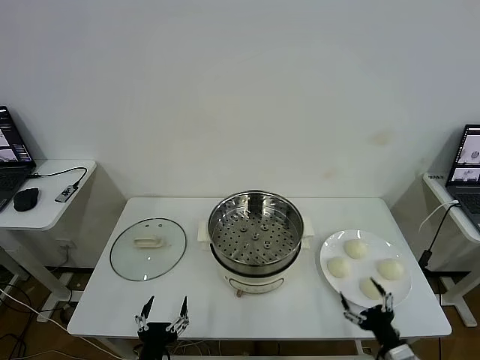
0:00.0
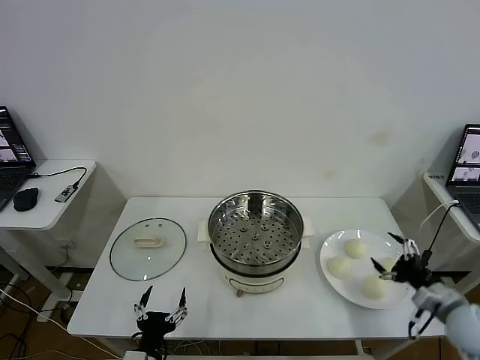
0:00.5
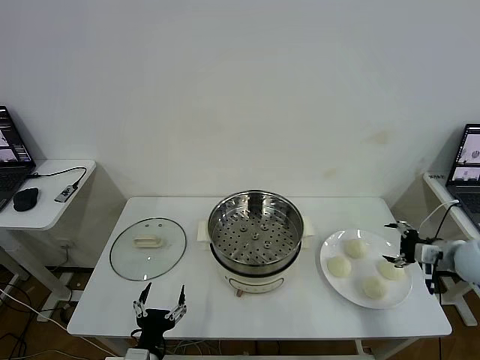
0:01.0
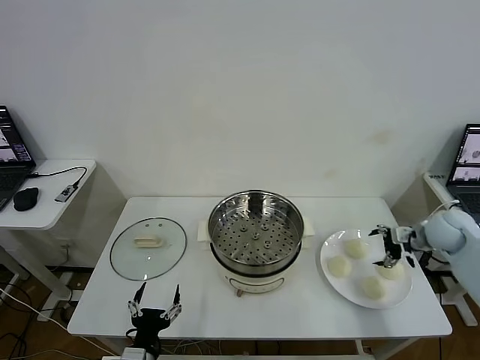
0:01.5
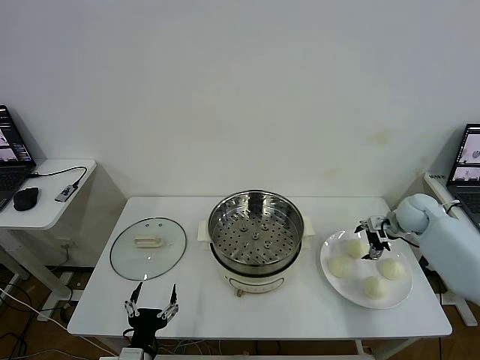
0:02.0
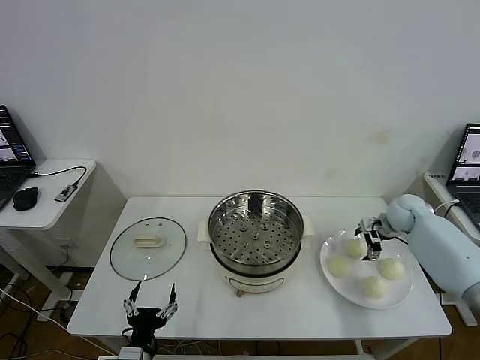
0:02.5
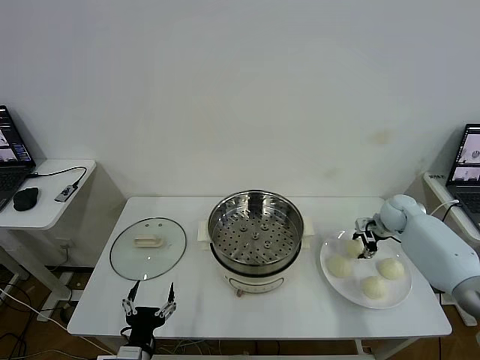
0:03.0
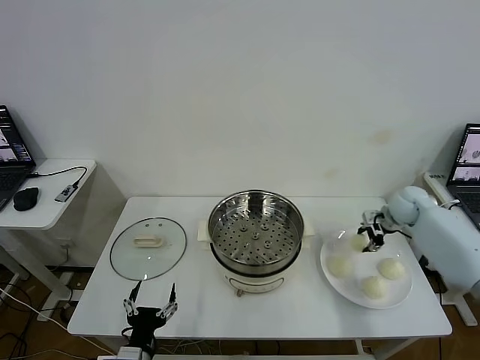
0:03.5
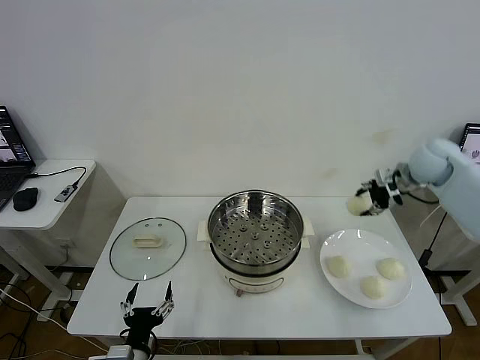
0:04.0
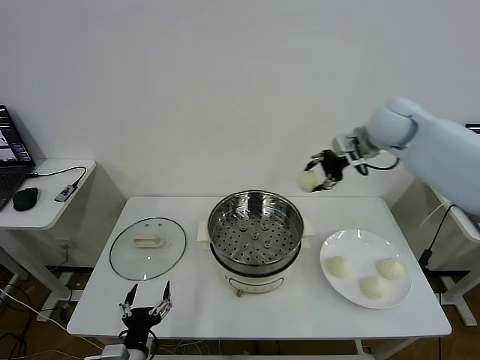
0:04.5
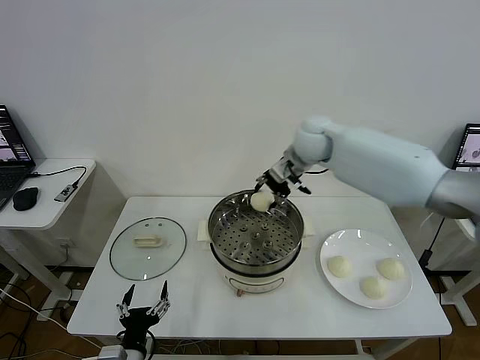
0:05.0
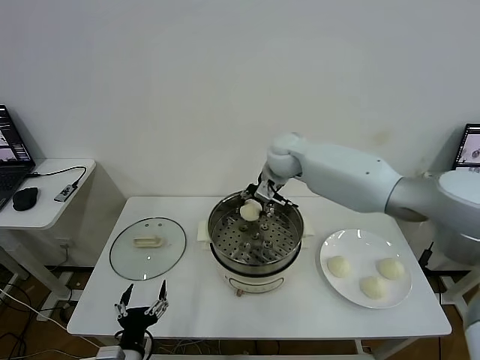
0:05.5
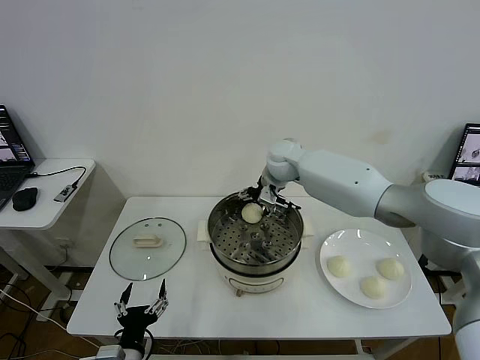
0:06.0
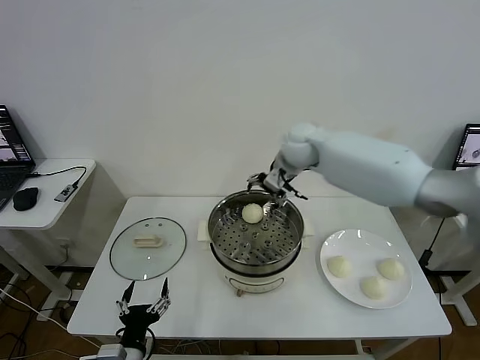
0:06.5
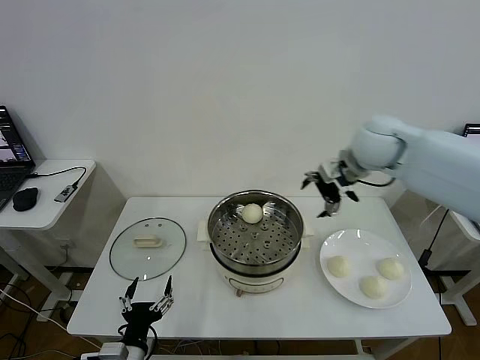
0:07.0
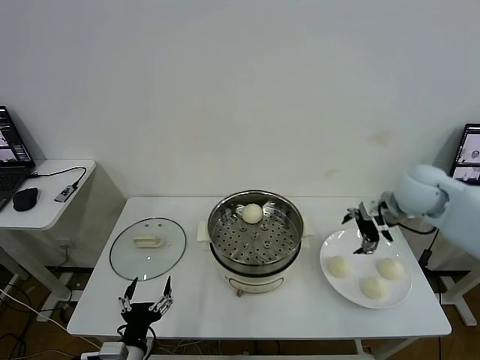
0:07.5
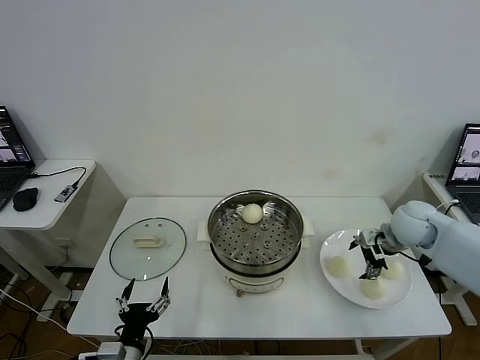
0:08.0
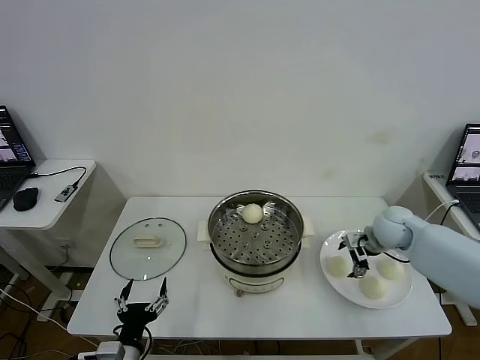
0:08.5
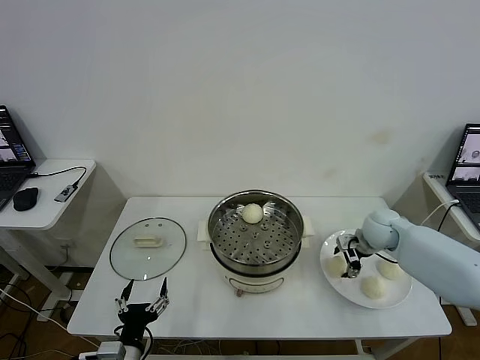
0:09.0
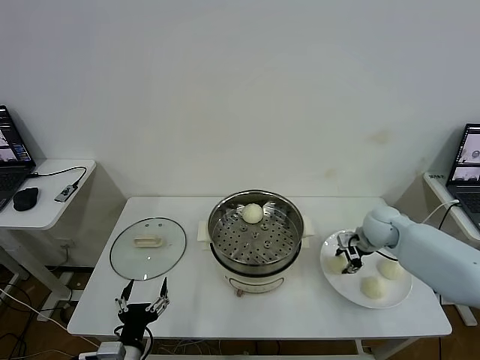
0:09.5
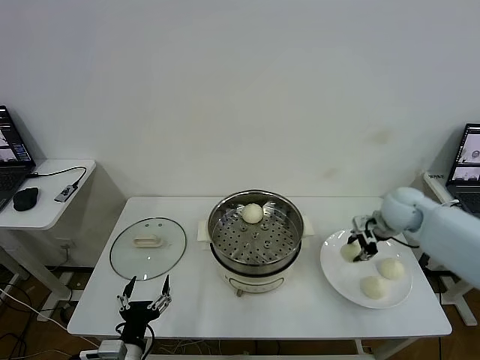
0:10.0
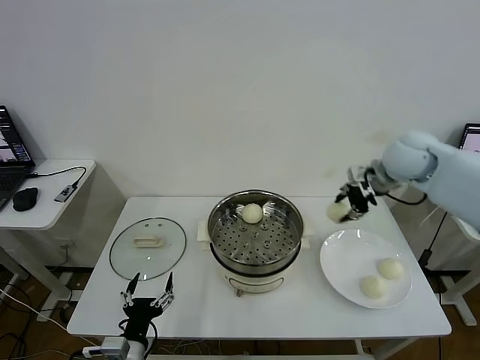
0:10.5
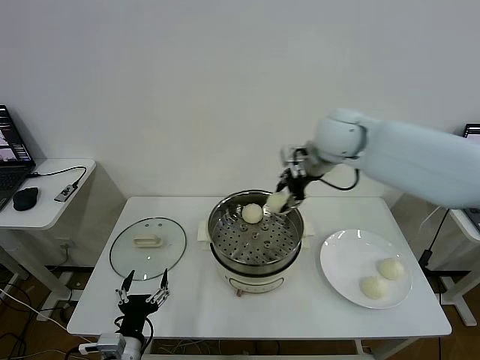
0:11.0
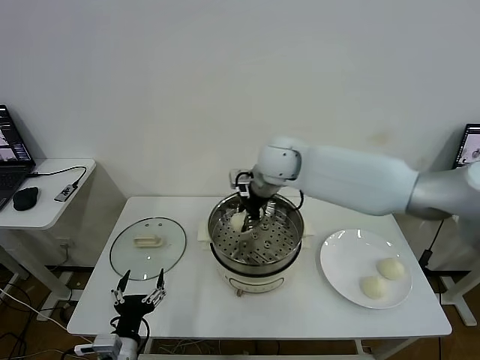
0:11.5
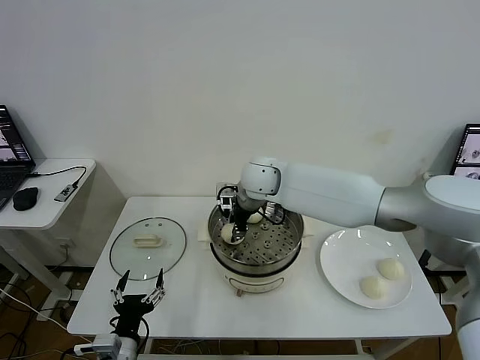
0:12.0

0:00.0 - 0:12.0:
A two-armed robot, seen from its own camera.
Task of the whole recording: take steamed baozi put them in steamer then cover it.
Step, 0:00.0 - 0:03.0: Grasp the baozi in the plate with right gripper.
Step, 0:03.5 - 0:06.0: Place the baozi on the steamer with right gripper.
Step, 0:06.5 - 0:09.0: Grasp the baozi in the plate with right gripper.
0:02.0 - 0:04.0: The right gripper is displaced upward by approximately 15 cm, and closes its fingers.
0:04.0 - 0:06.0: The right gripper goes some 30 cm to the left, and opens its fingers.
0:06.0 - 0:08.0: The right gripper goes approximately 30 cm to the right and backward.
0:08.0 - 0:10.0: The right gripper travels downward and back again, approximately 5 cm each way, and closes up.
0:10.0 - 0:12.0: The right gripper goes roughly 35 cm to the left.

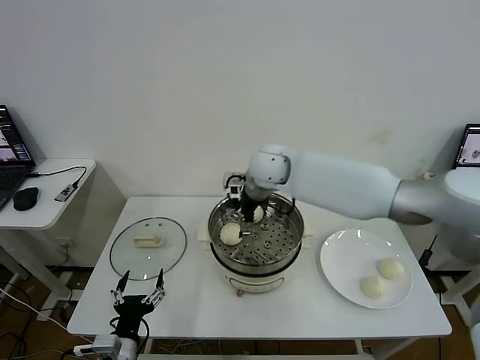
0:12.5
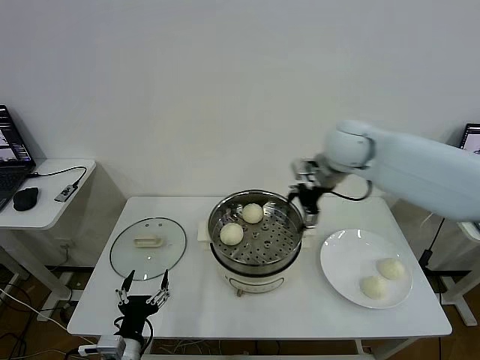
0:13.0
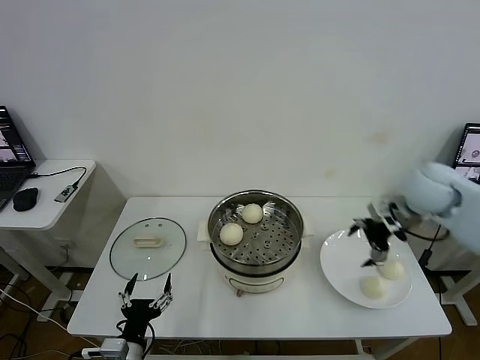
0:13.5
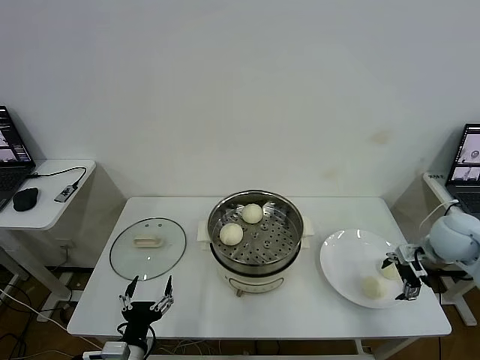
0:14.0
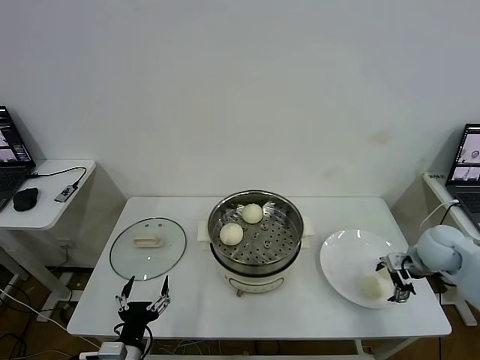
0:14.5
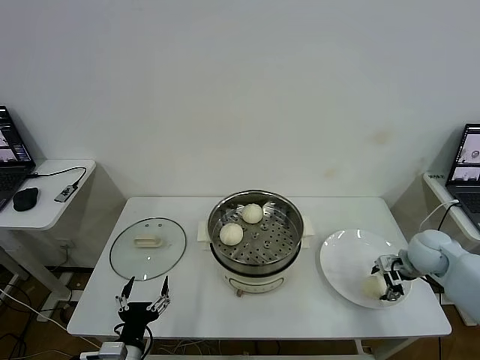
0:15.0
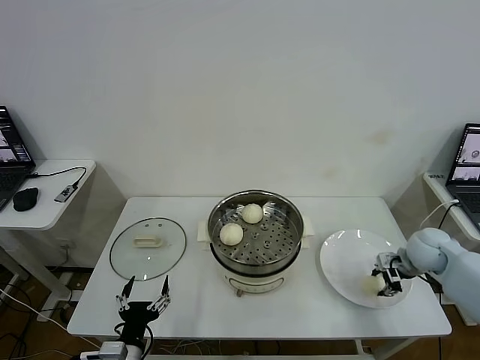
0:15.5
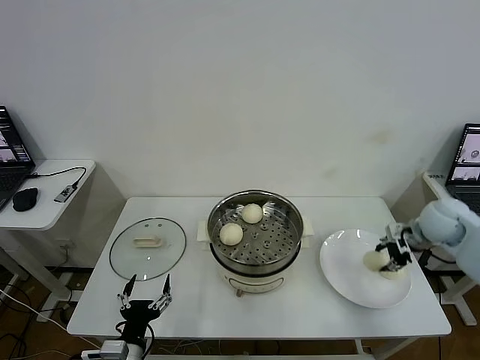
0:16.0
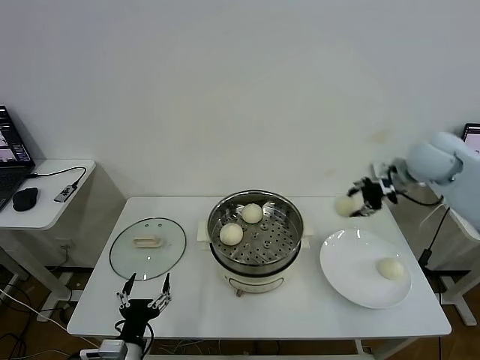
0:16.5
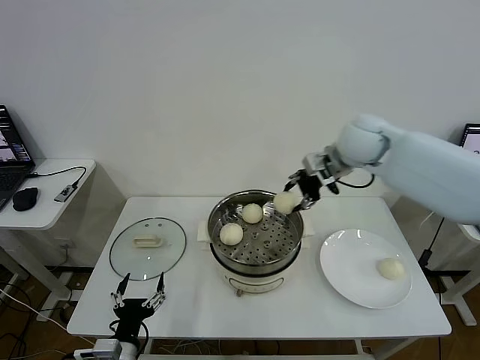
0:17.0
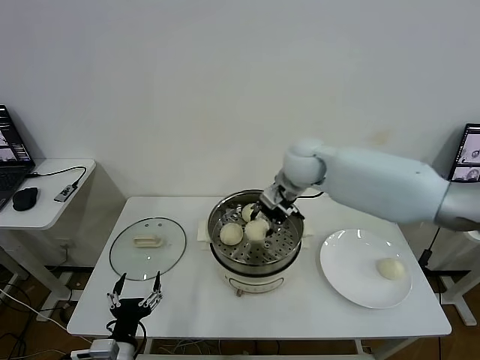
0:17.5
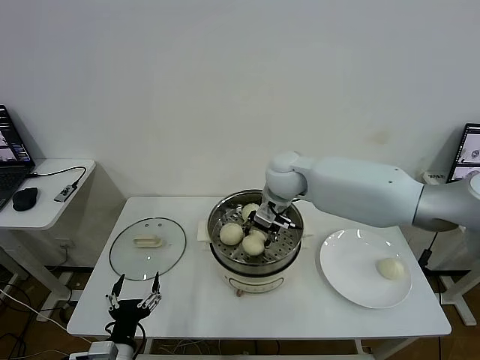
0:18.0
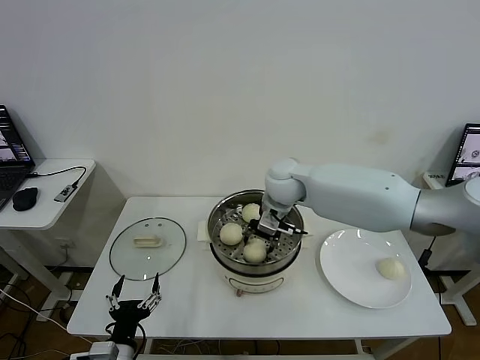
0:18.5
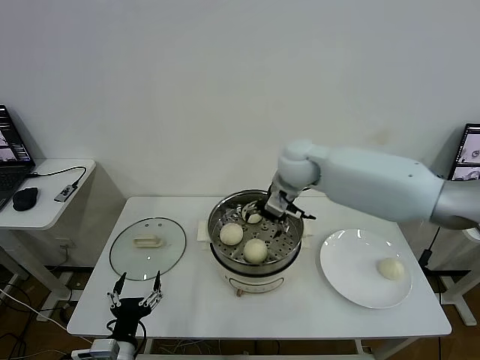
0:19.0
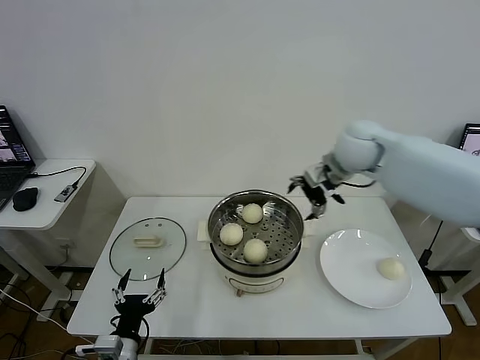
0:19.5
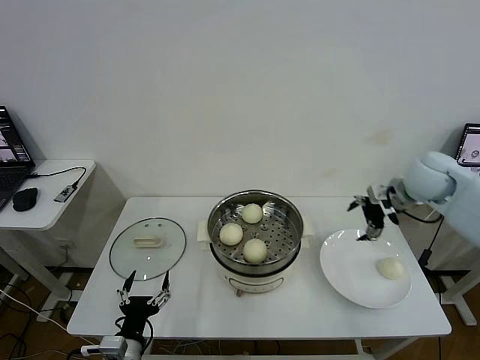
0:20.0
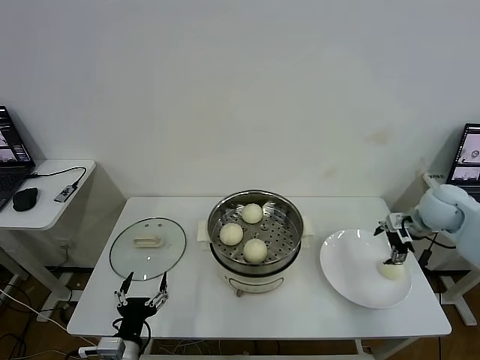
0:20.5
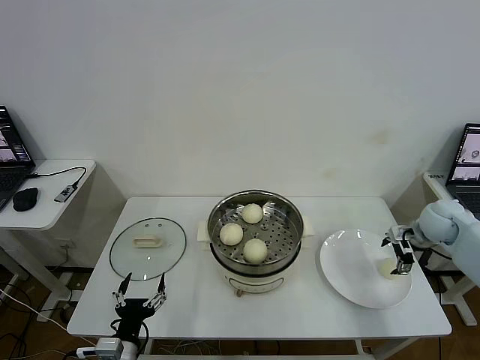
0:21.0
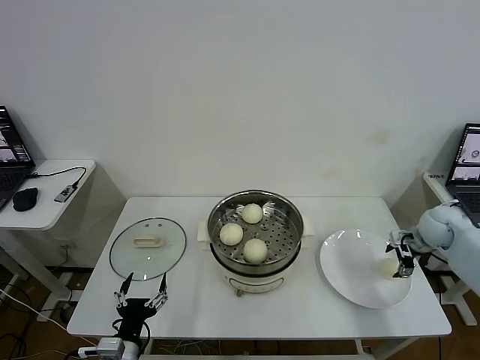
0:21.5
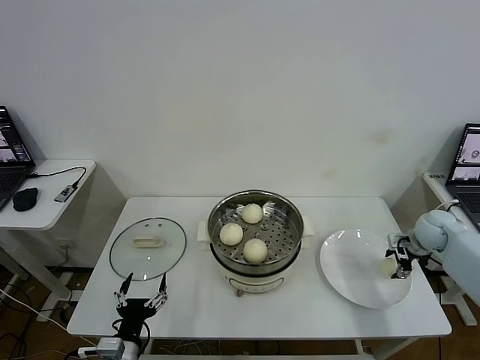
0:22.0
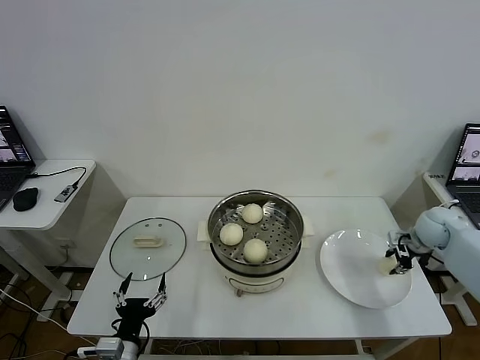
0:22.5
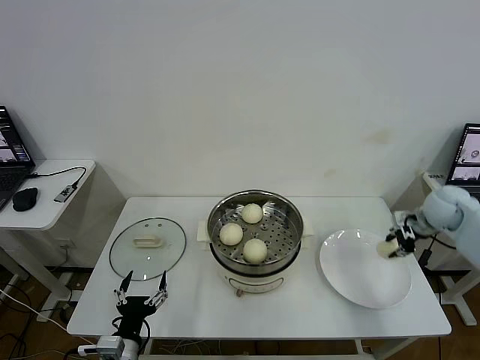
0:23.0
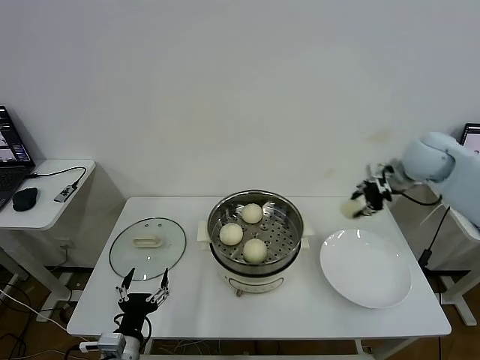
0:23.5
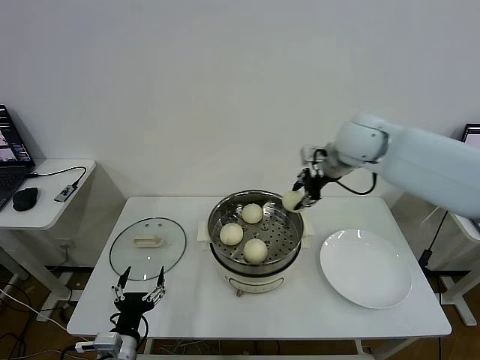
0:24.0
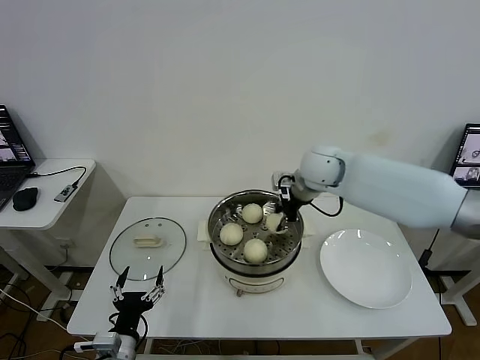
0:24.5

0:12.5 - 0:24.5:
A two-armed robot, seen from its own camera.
Task of the whole recording: take steamed baozi put them in steamer then cover it.
Step, 0:13.0 - 0:15.0: Grasp the baozi in the plate with right gripper.
Step, 0:15.5 - 0:18.5: Place the baozi on the steamer with right gripper.
Step, 0:19.0 - 0:22.0: Grasp the baozi in the plate with right gripper.
0:12.5 - 0:14.5: The right gripper heads to the right, covering roughly 40 cm.
0:14.5 - 0:16.5: The right gripper moves upward and forward, about 20 cm, and closes.
0:16.5 - 0:18.5: The right gripper travels to the left by some 30 cm, and opens up.
0:18.5 - 0:20.5: The right gripper goes roughly 35 cm to the right, and opens.
0:20.5 - 0:22.5: The right gripper heads downward, covering approximately 10 cm, and closes up.
0:22.5 - 0:24.5: The right gripper moves to the left and upward, roughly 35 cm.

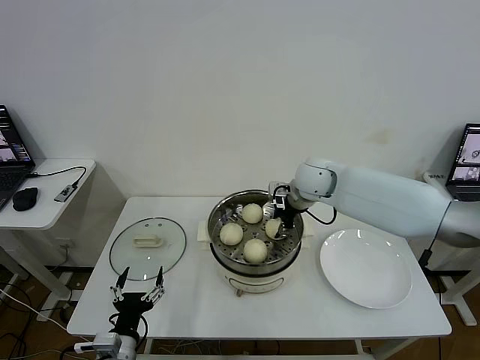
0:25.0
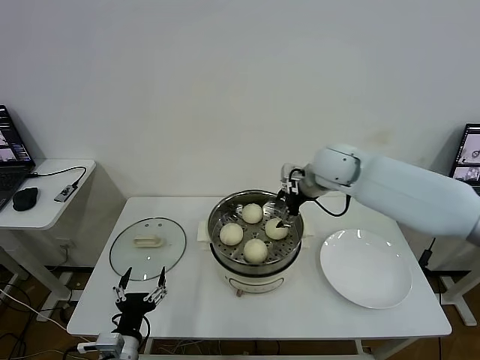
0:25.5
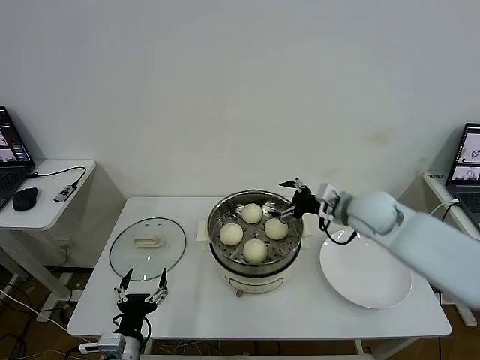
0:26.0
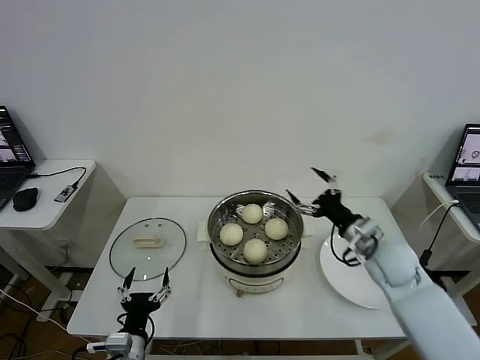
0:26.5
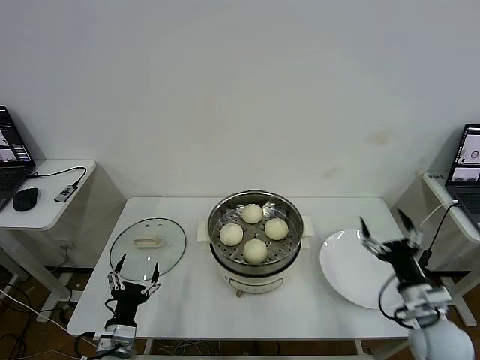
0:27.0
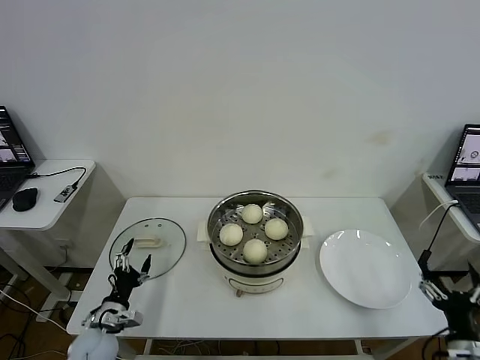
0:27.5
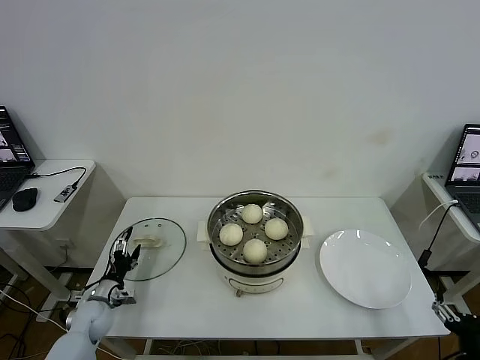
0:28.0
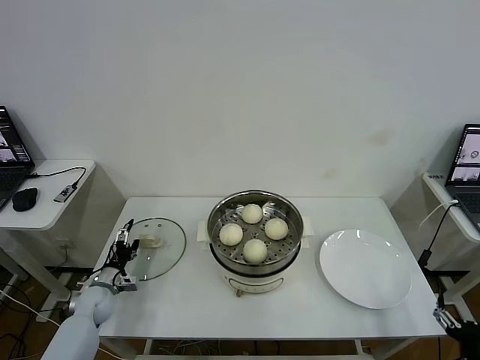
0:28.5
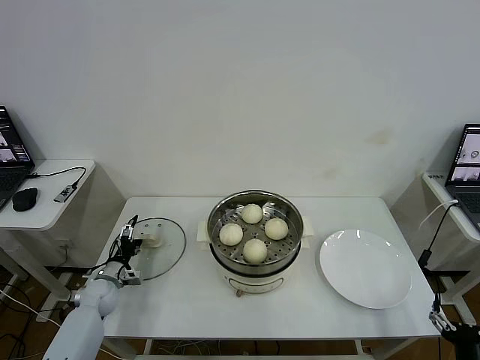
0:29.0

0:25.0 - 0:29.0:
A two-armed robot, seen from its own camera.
Task of the whole recording: take steamed baozi put them in steamer then cover it.
0:25.0 - 0:27.0: The right gripper heads backward, to the right and downward, covering about 40 cm, and opens.
0:27.0 - 0:29.0: The left gripper heads forward and to the left, covering roughly 25 cm; the right gripper heads backward and downward, covering about 15 cm.
